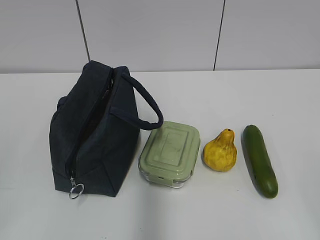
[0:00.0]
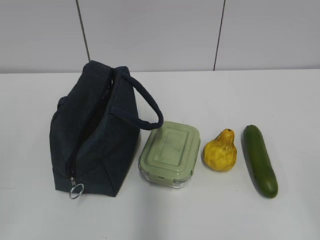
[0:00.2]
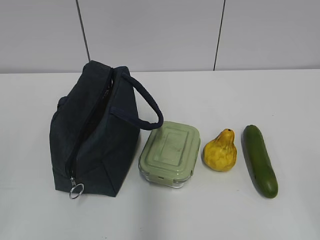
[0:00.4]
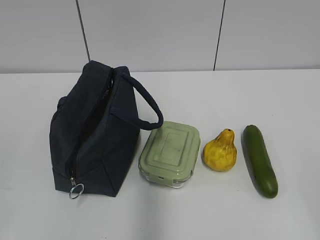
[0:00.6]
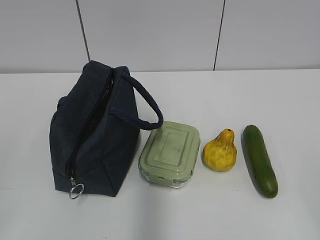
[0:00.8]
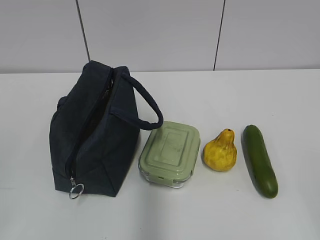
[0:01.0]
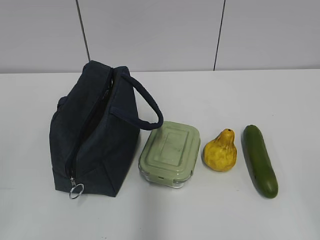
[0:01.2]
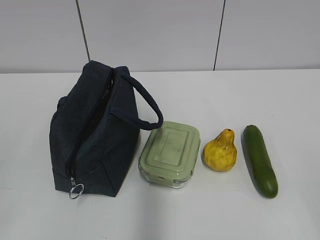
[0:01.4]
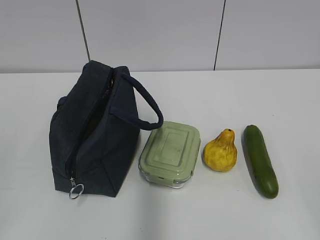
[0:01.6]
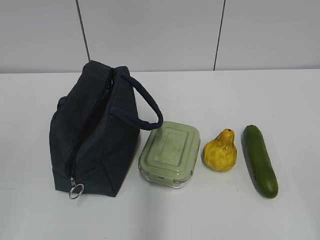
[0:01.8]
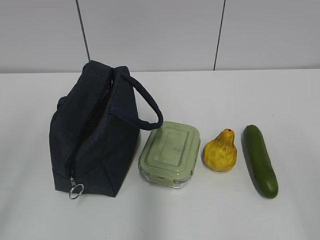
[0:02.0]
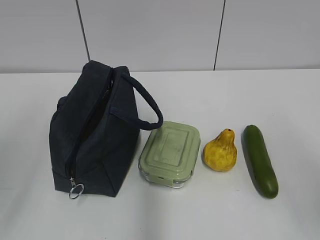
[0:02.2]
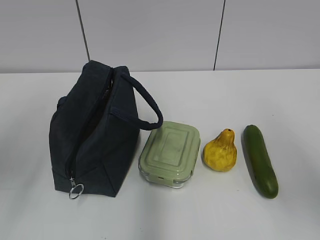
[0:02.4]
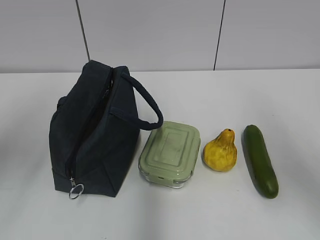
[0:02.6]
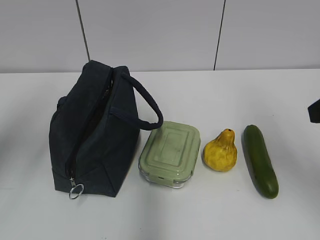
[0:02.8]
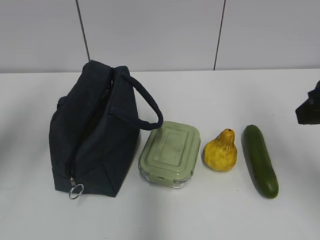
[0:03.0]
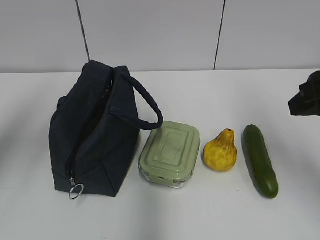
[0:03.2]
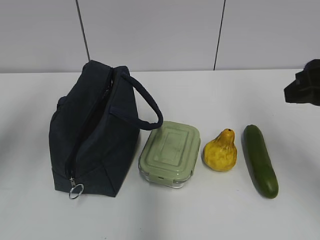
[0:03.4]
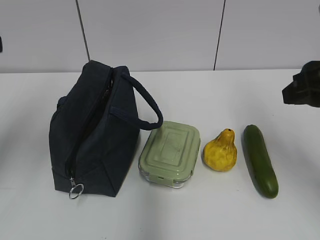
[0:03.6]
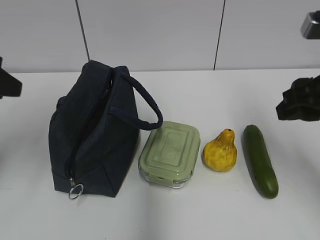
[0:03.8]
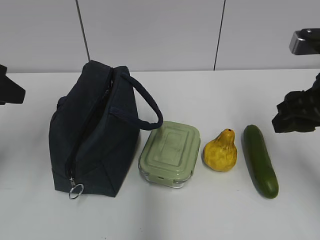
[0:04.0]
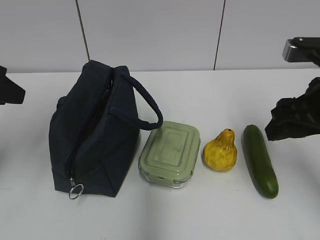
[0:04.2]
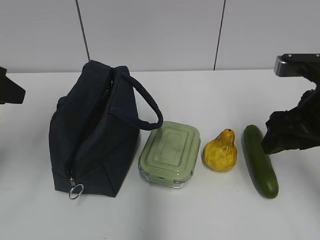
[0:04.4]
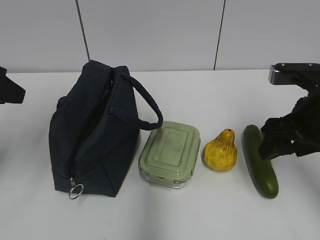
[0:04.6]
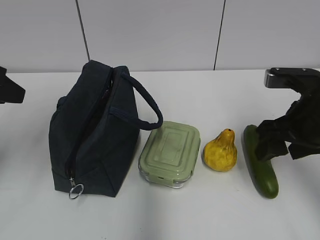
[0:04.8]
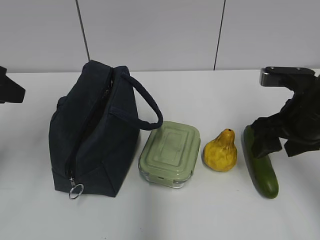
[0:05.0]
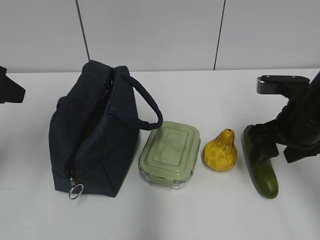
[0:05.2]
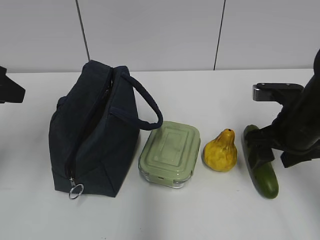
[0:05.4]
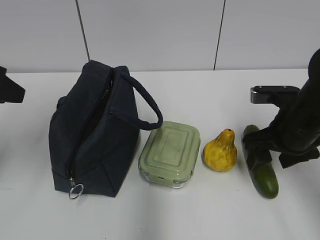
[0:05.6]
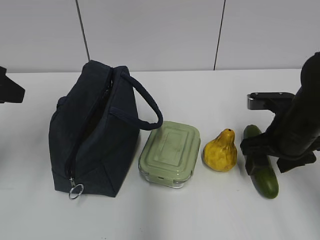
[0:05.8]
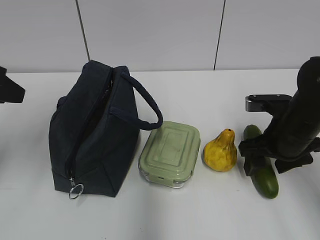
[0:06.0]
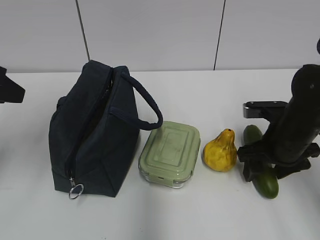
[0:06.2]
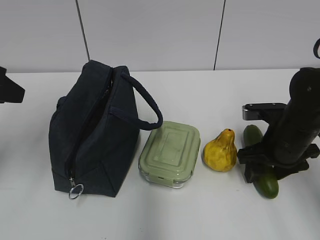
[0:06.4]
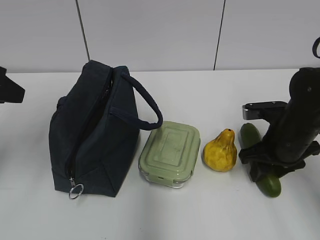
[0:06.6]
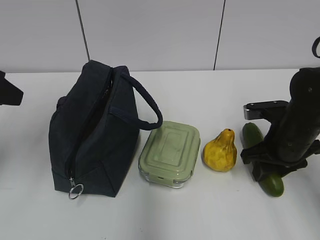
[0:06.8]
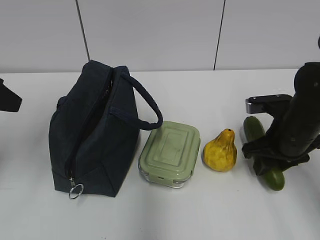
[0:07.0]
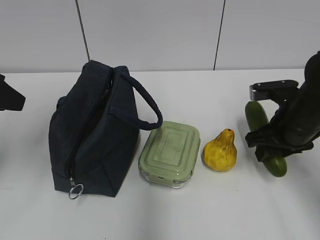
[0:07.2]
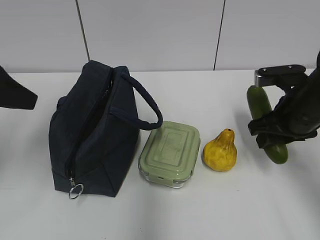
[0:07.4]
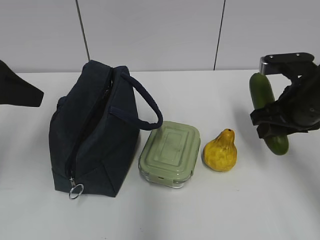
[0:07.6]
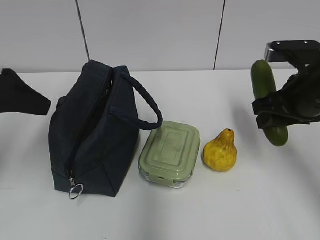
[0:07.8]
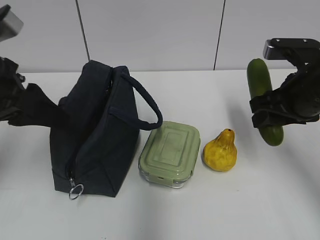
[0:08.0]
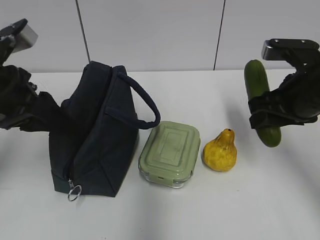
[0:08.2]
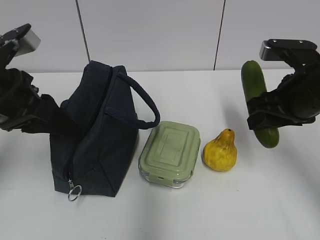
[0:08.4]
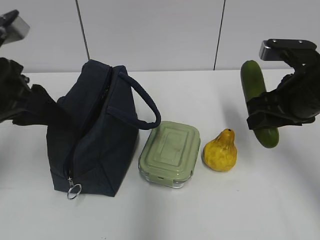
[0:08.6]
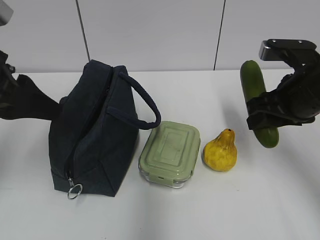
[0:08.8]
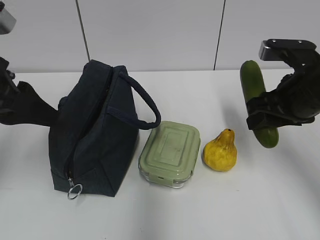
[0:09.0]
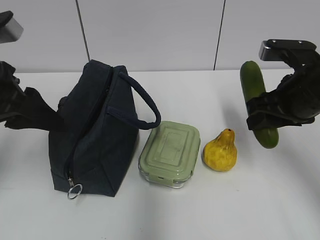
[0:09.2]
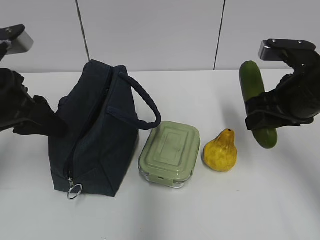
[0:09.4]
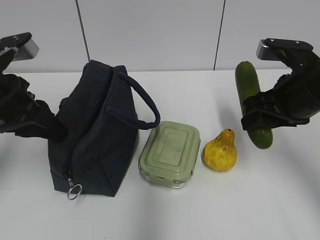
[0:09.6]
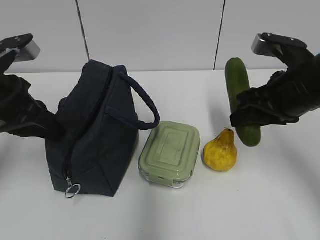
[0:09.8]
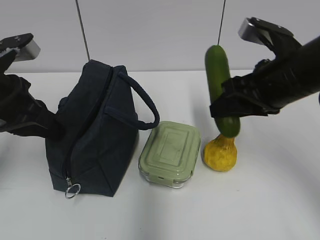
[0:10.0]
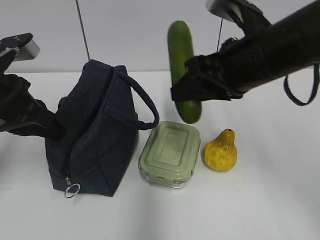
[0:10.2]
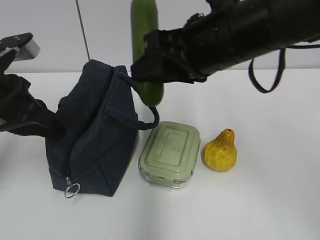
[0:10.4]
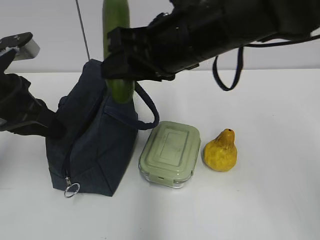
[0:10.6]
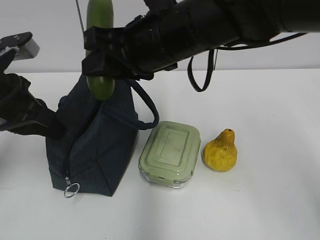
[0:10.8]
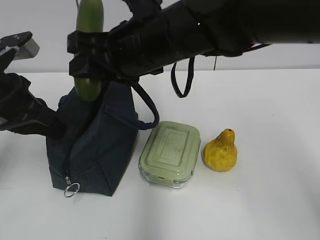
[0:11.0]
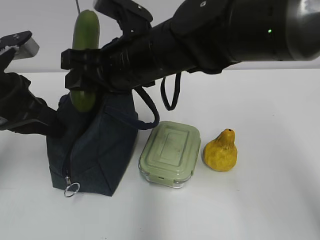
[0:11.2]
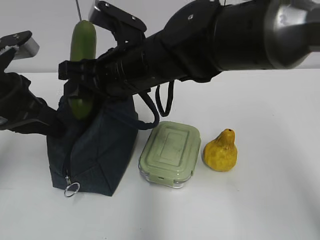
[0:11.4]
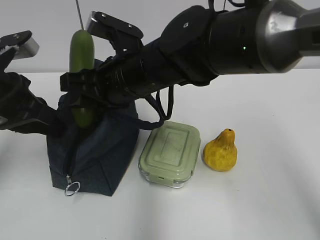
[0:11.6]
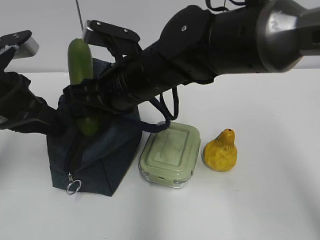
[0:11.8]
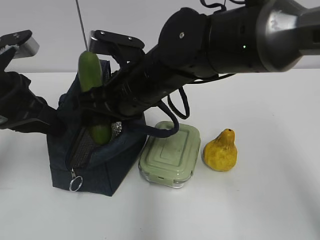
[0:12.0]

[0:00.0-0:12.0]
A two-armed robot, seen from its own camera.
Step, 0:00.0 to 0:06.6: Grab the cucumber with your right hand.
Step, 0:06.8 to 0:09.4: Grab the lunch bag with your left hand.
0:01.6 to 0:03.0: The two grippers go about 20 cm forward.
0:03.0 to 0:04.4: Both grippers move downward, roughly 5 cm.
0:04.4 to 0:06.0: The right gripper goes some 10 cm downward and forward.
0:06.0 to 0:07.6: The right gripper moves upward, approximately 5 cm, and closes up.
0:09.0 to 0:10.4: The left gripper closes its fingers. The right gripper moves to the left and upward, about 15 cm.
0:10.4 to 0:12.0: The right gripper shifts roughly 15 cm to the left and downward.

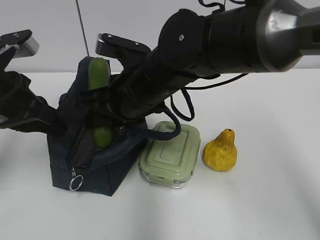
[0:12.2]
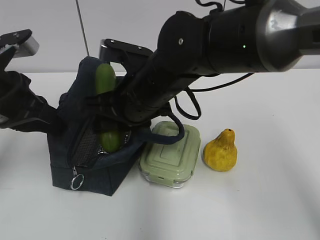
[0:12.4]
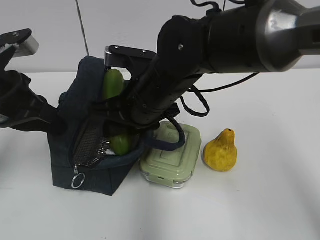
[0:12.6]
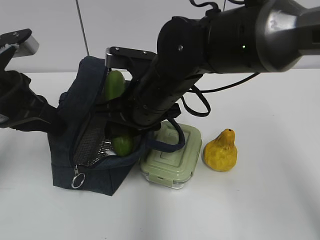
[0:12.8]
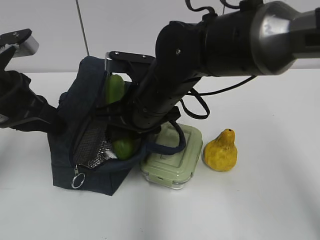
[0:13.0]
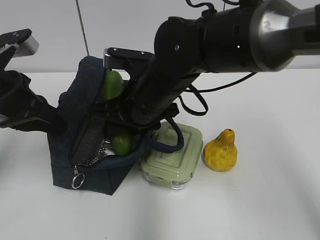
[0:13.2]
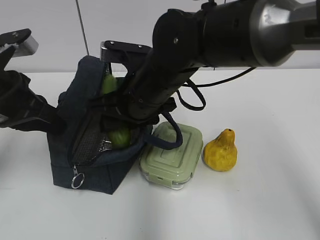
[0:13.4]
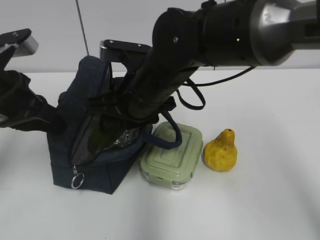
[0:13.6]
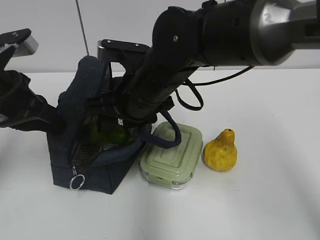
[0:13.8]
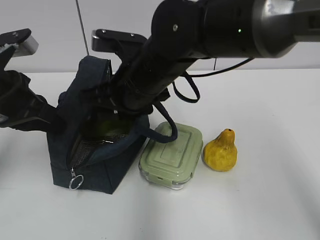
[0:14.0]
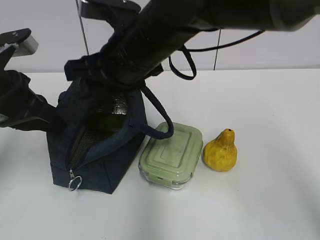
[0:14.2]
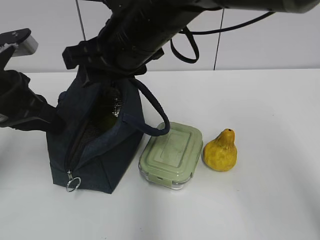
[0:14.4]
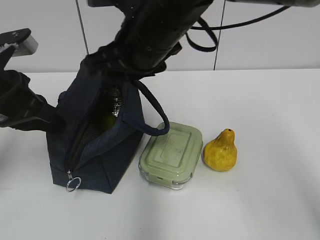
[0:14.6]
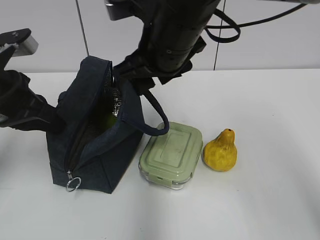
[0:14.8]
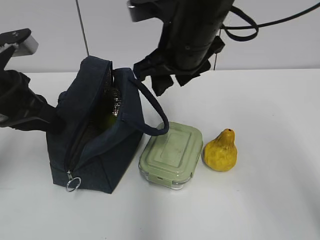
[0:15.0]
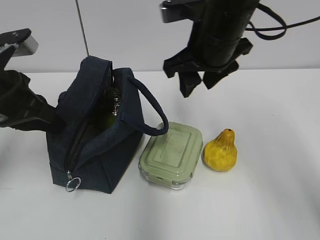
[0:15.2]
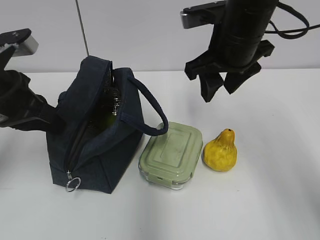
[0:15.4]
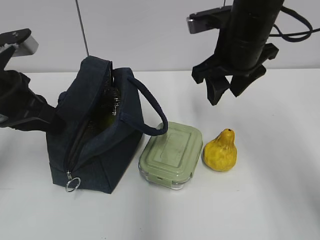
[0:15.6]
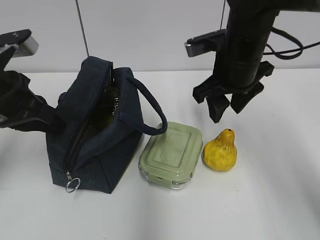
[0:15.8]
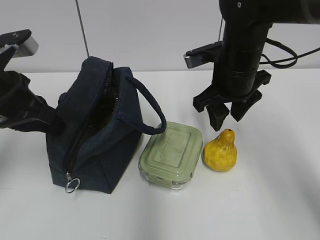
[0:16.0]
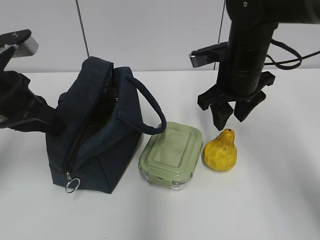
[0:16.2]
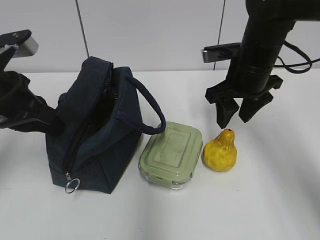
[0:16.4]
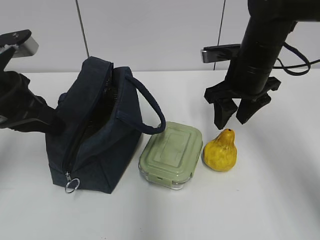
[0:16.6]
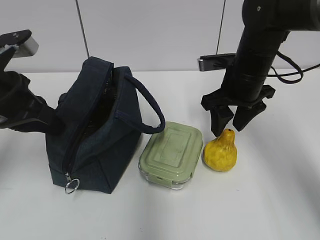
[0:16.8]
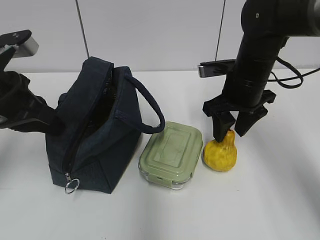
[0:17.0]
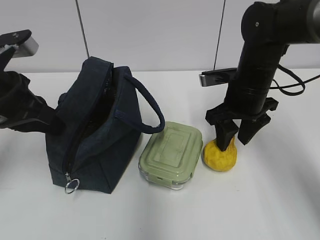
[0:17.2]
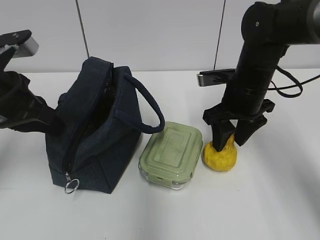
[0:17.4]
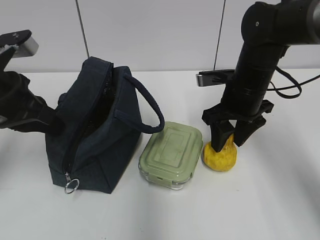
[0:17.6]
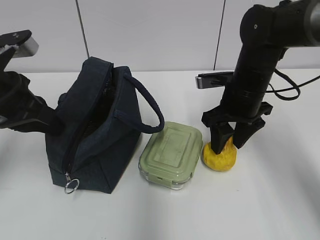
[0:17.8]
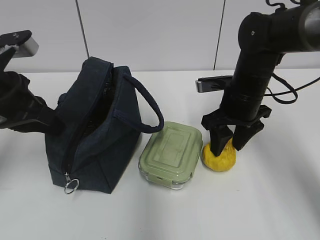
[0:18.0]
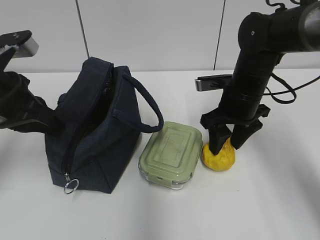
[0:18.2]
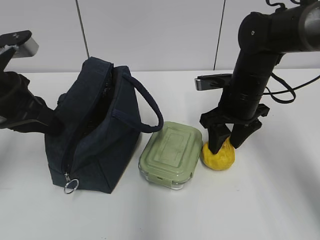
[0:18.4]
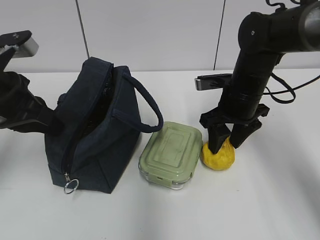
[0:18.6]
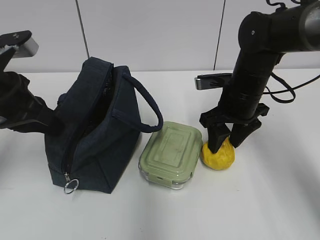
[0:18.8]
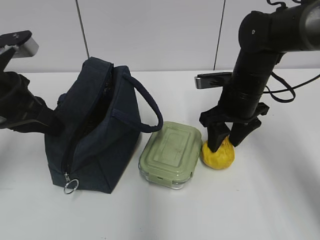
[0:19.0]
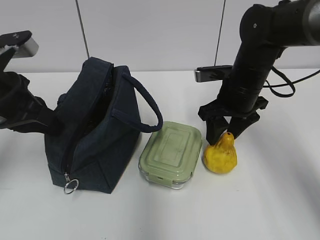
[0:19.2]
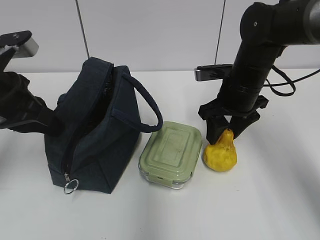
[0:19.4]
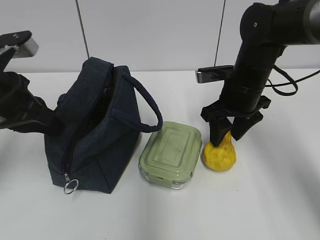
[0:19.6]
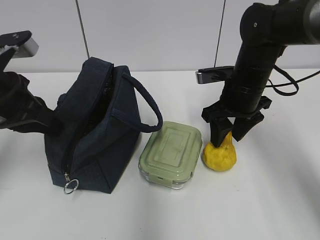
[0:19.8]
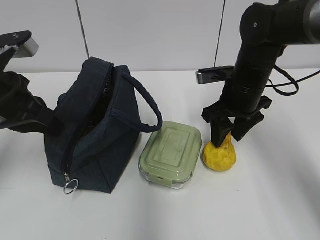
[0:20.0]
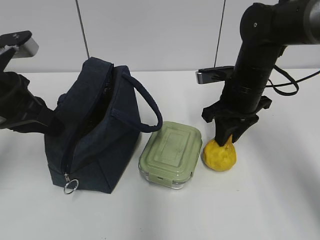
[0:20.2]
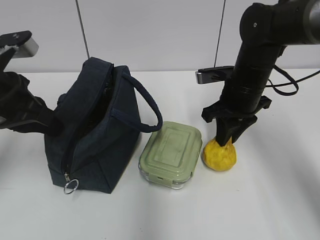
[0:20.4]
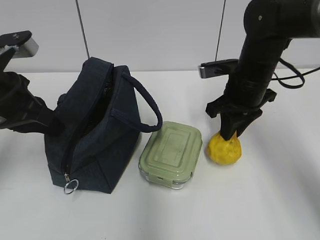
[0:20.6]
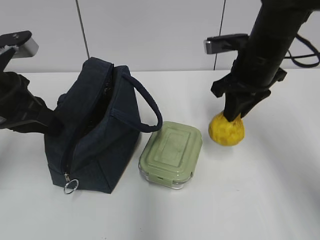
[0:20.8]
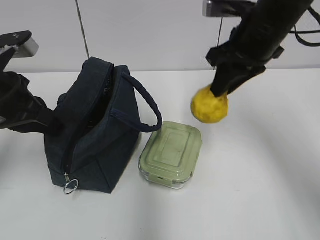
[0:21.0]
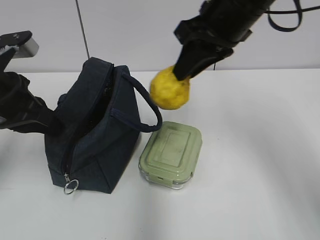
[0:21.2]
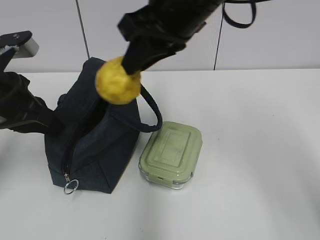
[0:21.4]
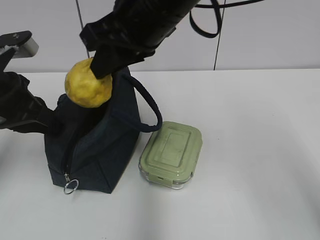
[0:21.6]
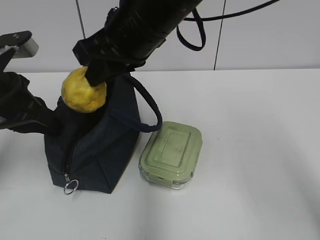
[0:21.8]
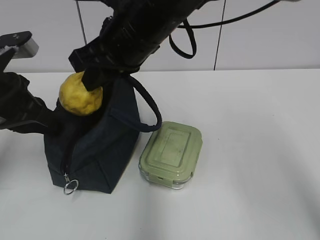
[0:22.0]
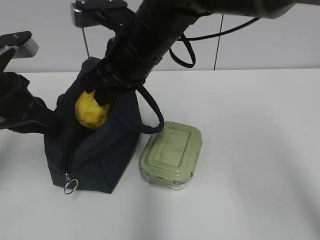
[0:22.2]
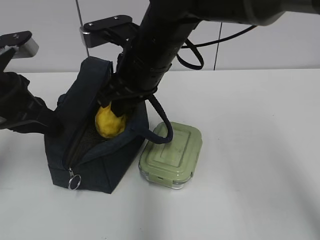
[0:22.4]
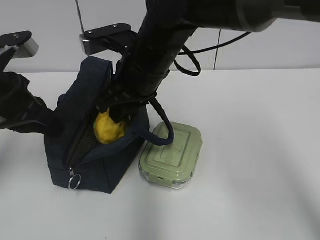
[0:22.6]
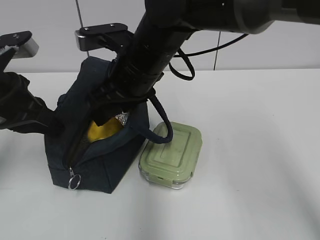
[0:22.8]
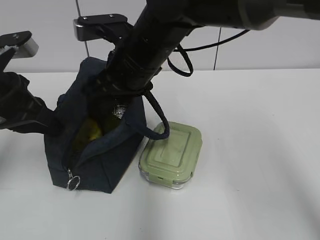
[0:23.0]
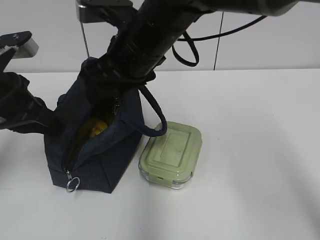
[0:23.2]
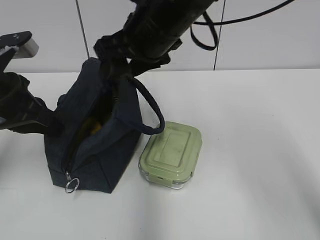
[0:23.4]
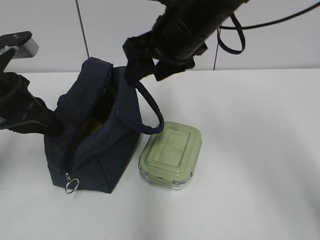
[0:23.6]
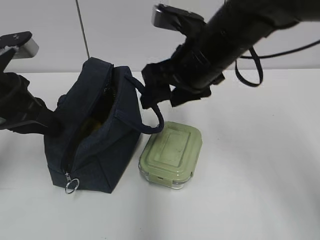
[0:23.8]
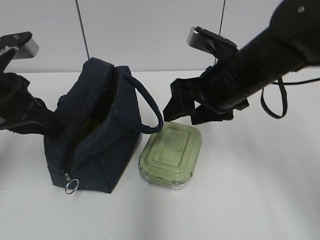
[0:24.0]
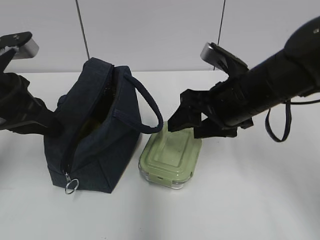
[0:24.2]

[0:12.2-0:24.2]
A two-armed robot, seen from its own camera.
Step, 0:14.2 to 0:20.4: Grab the pear with your right hand.
Step, 0:20.6 to 0:22.8: Place it into the bag with your right hand.
0:12.2 to 0:13.8: The grippers make only small movements.
0:13.8 to 0:15.2: The right gripper goes roughly 10 cm to the right and upward.
0:15.2 to 0:16.6: The right gripper shifts about 10 cm downward and to the right.
0:16.6 to 0:18.2: The right gripper travels downward by some 5 cm.
0:18.2 to 0:19.8: Both grippers stay put.
0:19.8 to 0:21.2: The right gripper is displaced upward by approximately 15 cm, and closes up.
0:21.2 to 0:22.6: The right gripper moves to the left and downward, roughly 15 cm.
0:22.6 to 0:24.2: The right gripper goes roughly 15 cm to the right, and opens up.
